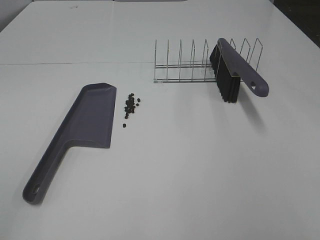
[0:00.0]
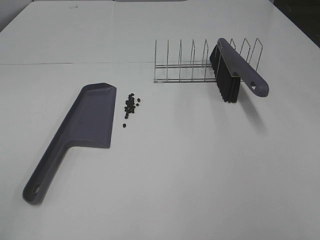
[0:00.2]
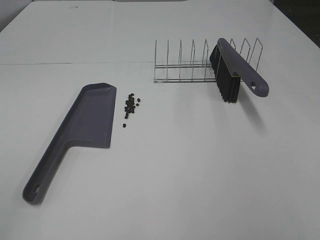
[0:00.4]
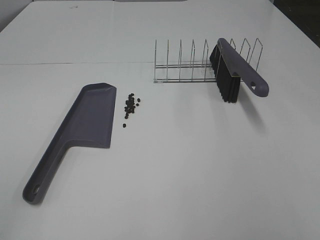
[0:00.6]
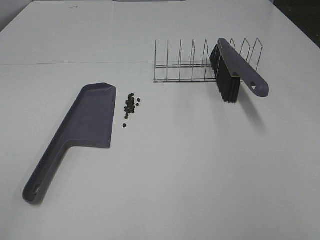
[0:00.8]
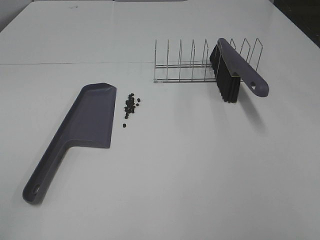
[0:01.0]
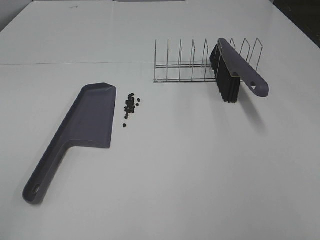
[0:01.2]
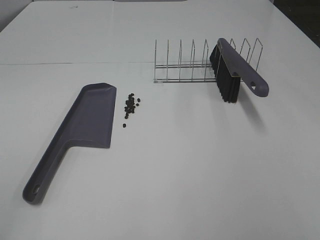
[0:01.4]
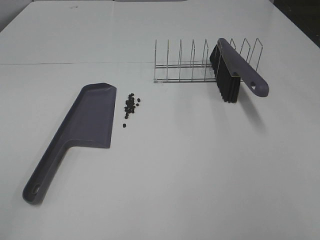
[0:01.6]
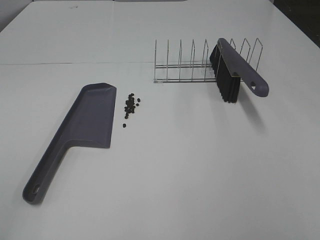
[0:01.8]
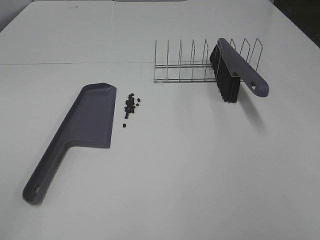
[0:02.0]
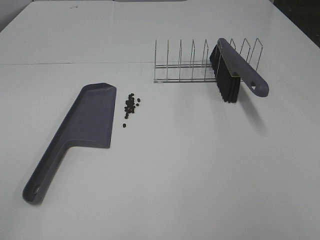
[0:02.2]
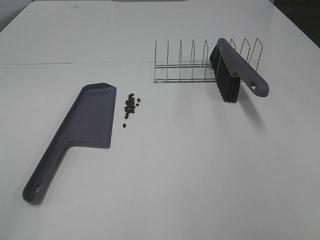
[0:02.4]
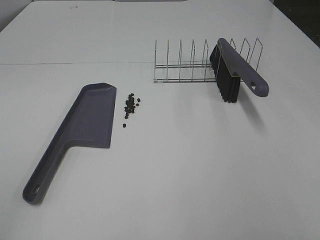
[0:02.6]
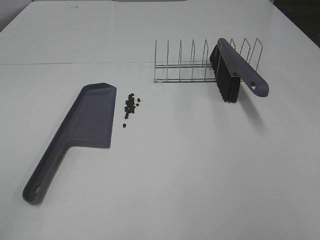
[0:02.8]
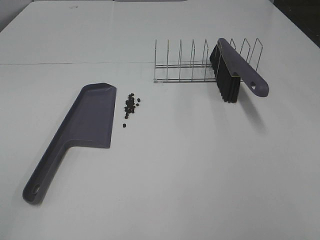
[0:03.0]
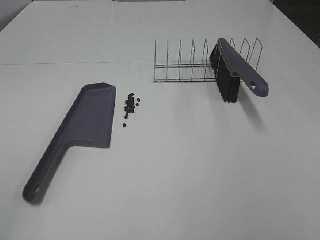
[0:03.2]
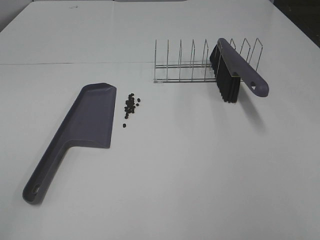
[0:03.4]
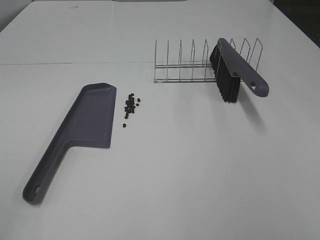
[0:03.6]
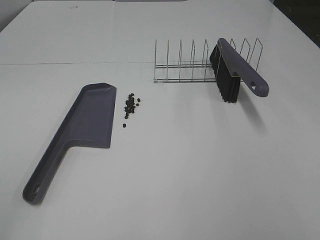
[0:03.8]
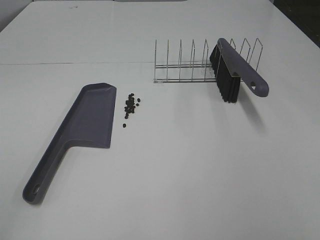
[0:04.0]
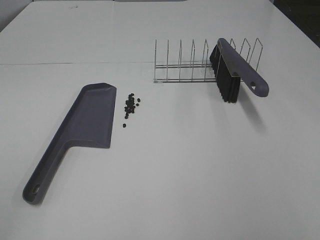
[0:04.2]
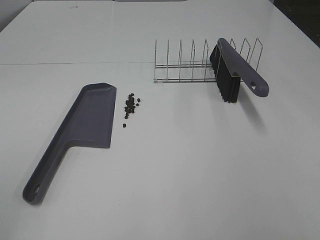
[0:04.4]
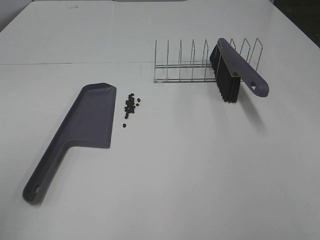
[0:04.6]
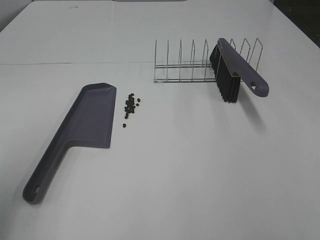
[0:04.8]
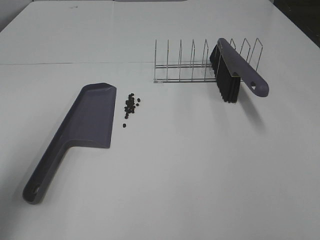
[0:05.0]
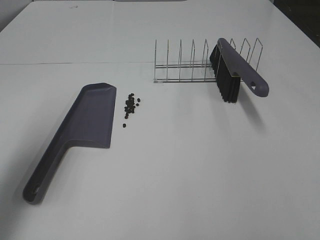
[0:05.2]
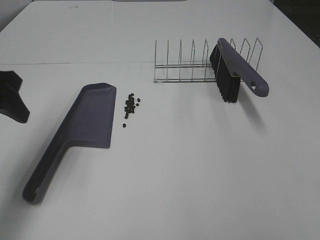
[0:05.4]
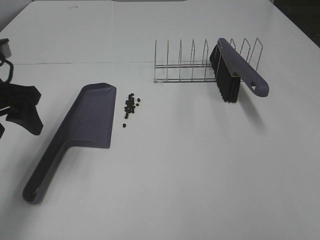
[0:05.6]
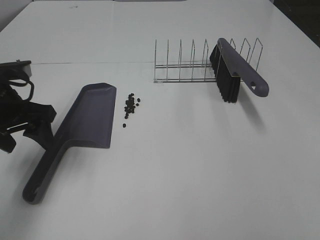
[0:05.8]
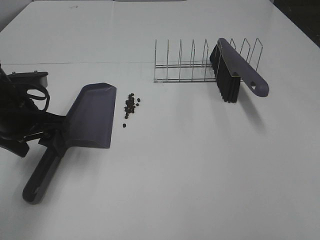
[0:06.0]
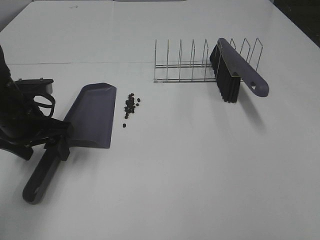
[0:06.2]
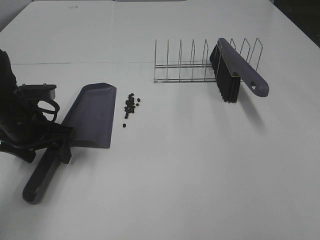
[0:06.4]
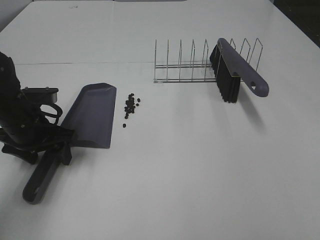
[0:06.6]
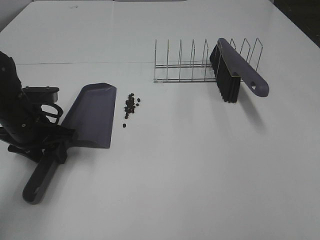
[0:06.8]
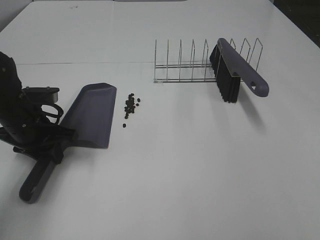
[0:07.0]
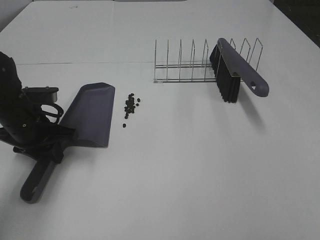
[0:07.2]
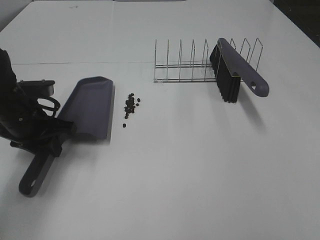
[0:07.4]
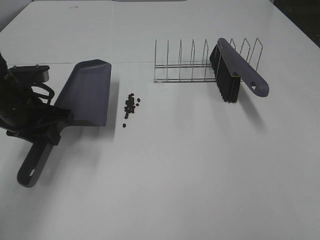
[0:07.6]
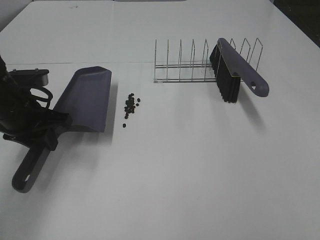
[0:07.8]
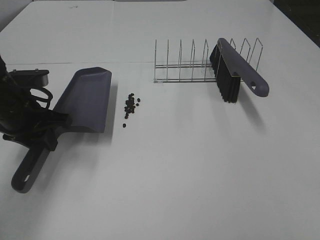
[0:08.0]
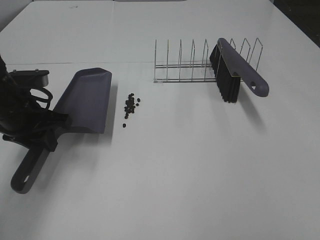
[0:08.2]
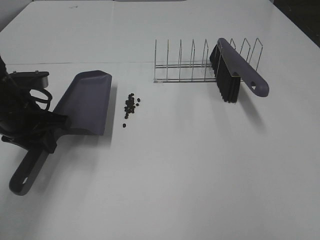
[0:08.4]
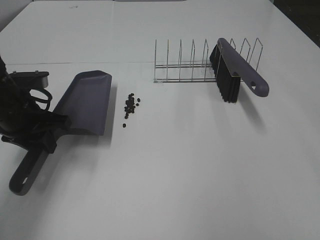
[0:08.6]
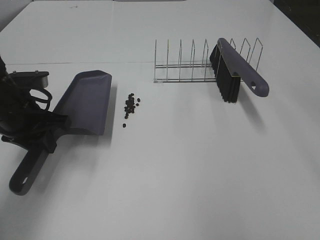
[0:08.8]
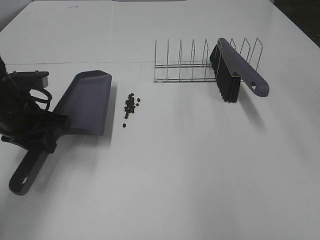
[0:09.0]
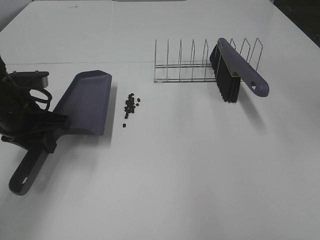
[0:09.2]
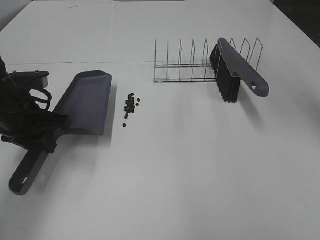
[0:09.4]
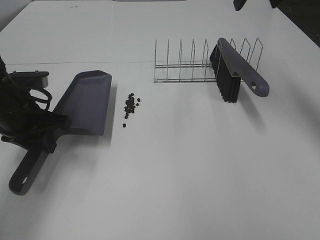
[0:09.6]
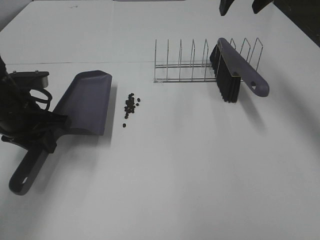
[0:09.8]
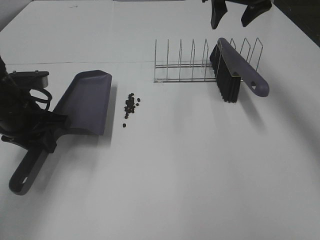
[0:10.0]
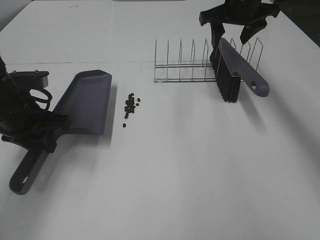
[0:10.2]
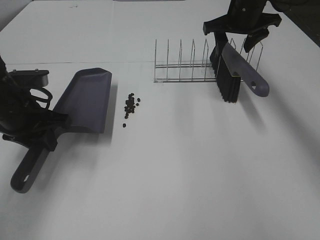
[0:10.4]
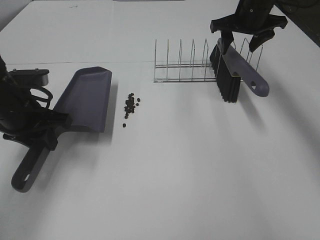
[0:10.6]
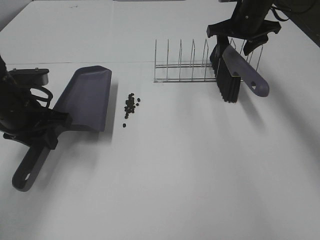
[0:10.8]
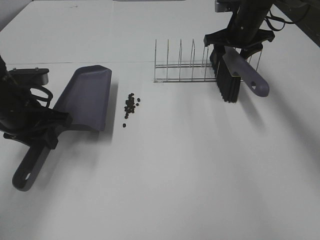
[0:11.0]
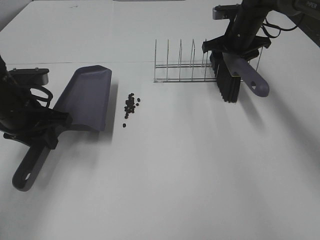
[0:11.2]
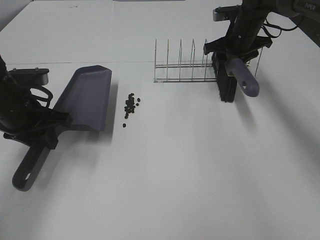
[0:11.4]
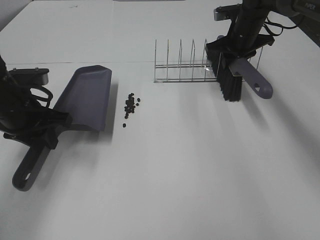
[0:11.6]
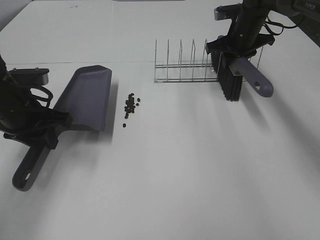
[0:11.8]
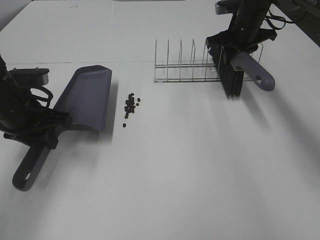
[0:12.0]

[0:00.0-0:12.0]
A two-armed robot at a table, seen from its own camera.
Task of the whole recording: Sweep Coffee Bean.
Step, 0:00.0 to 0:07.0: Left hand: grab the dustpan.
Step, 0:08.0 to 0:11.6: Right hand:grab the broom.
0:00.0 to 0:03.0: Both grippers stay put.
0:04.4 to 0:06.0: The left gripper shifts roughly 30 cm forward and downward.
0:06.0 to 0:07.6: The left gripper closes its fingers.
0:09.0 to 0:10.4: The right gripper goes about 30 cm forward and downward.
0:10.4 to 0:12.0: The right gripper moves about 5 cm, and closes its fingers.

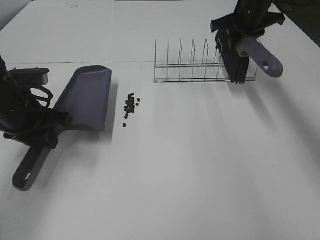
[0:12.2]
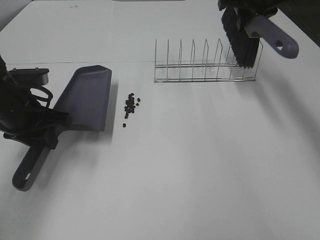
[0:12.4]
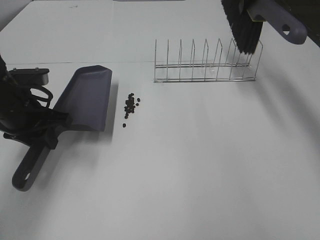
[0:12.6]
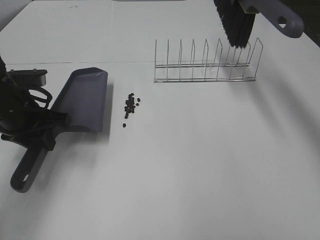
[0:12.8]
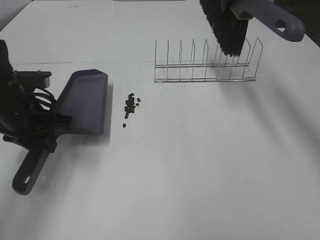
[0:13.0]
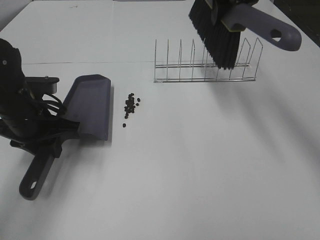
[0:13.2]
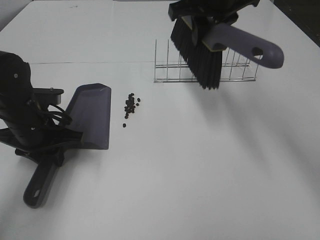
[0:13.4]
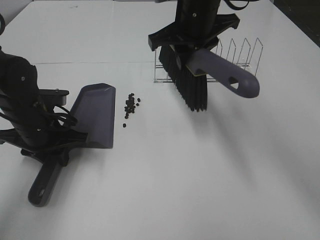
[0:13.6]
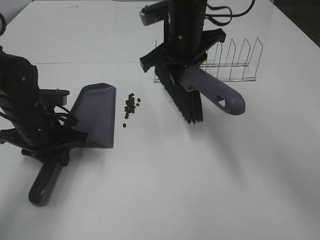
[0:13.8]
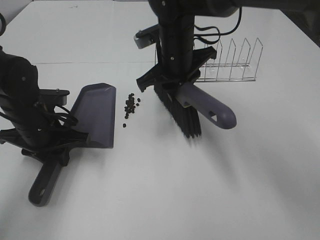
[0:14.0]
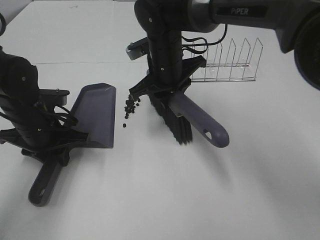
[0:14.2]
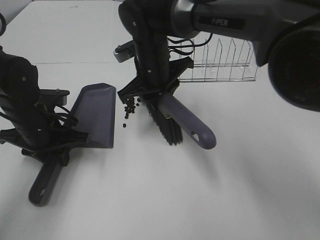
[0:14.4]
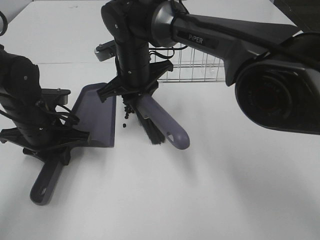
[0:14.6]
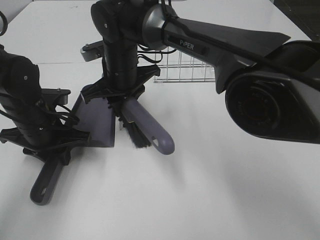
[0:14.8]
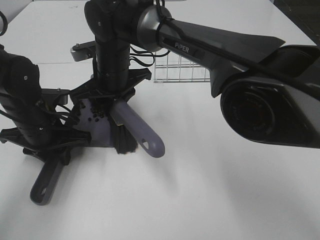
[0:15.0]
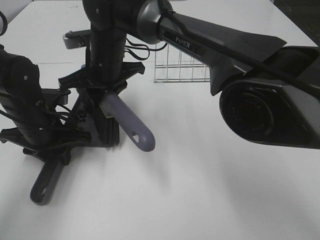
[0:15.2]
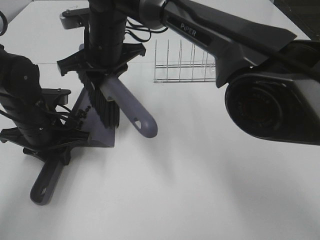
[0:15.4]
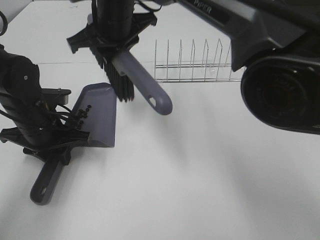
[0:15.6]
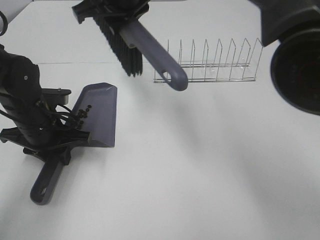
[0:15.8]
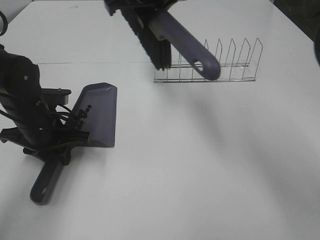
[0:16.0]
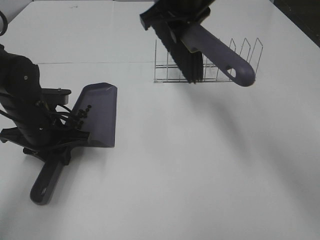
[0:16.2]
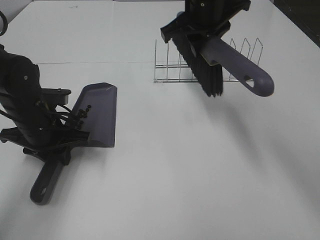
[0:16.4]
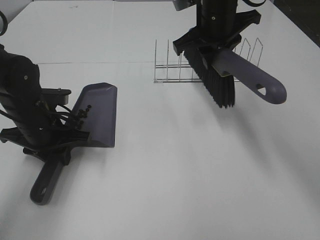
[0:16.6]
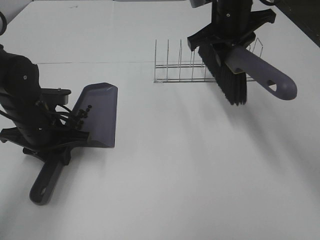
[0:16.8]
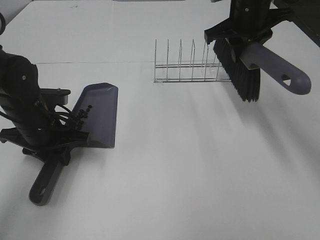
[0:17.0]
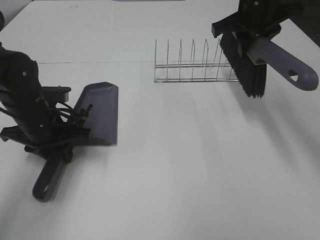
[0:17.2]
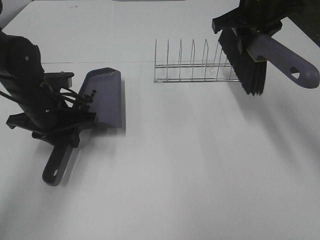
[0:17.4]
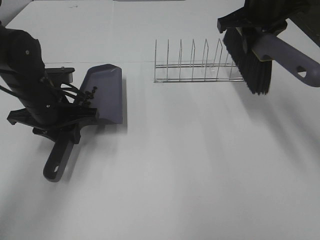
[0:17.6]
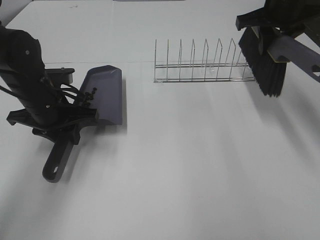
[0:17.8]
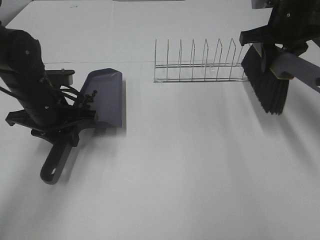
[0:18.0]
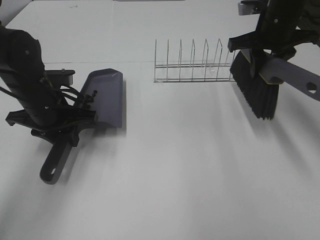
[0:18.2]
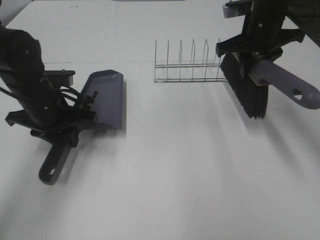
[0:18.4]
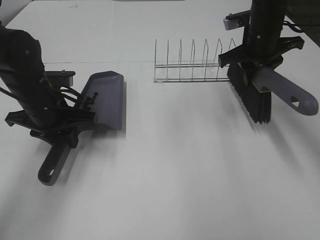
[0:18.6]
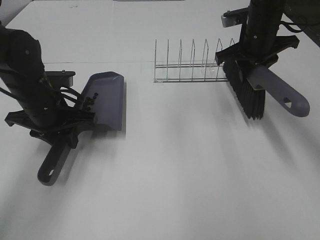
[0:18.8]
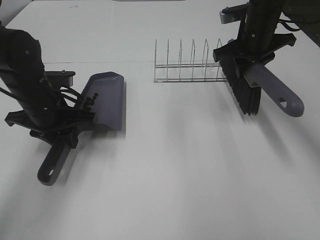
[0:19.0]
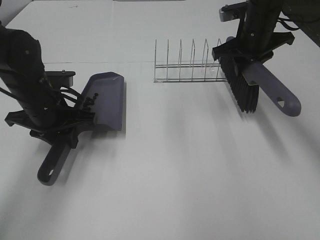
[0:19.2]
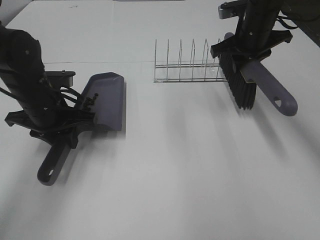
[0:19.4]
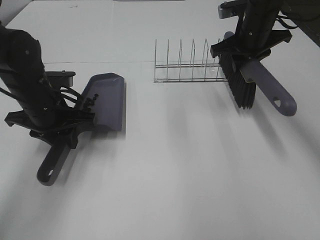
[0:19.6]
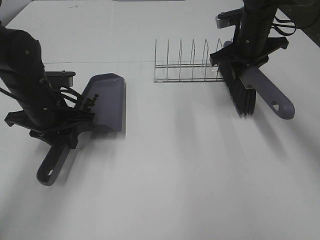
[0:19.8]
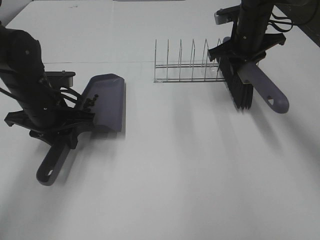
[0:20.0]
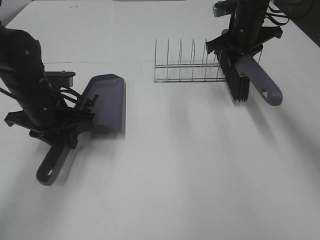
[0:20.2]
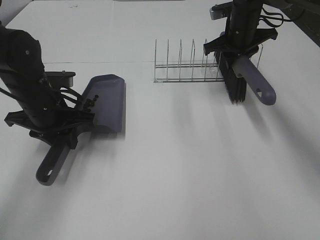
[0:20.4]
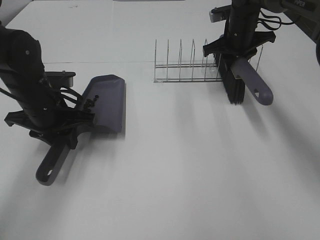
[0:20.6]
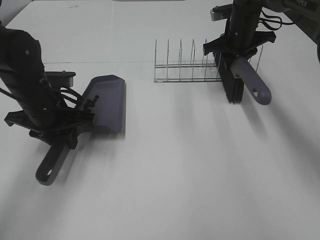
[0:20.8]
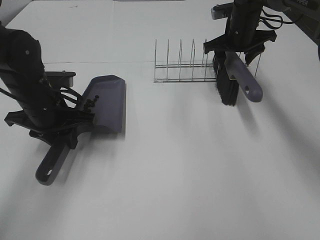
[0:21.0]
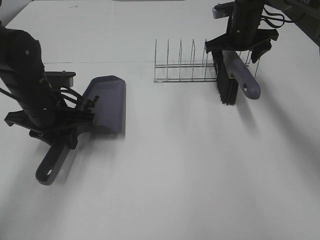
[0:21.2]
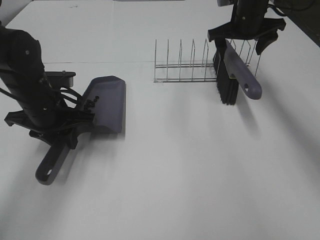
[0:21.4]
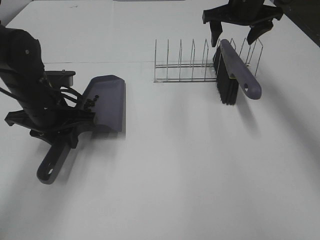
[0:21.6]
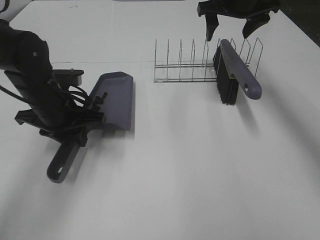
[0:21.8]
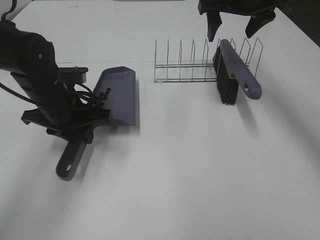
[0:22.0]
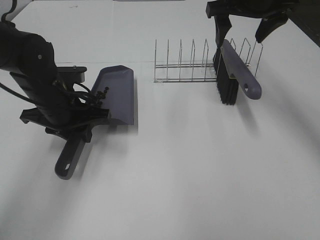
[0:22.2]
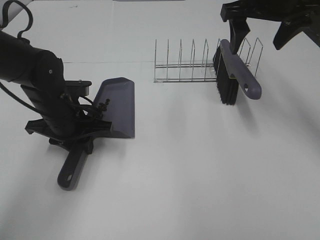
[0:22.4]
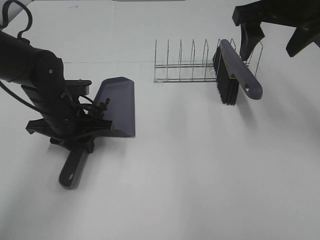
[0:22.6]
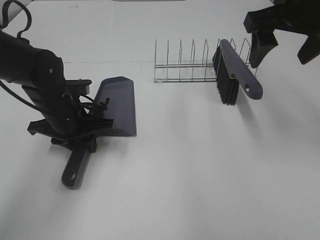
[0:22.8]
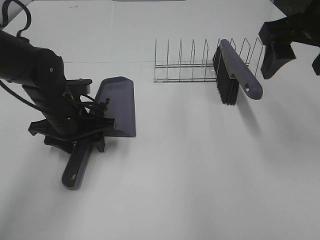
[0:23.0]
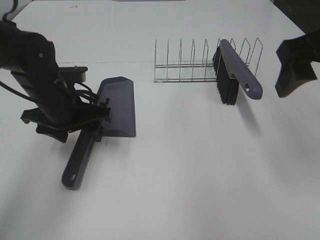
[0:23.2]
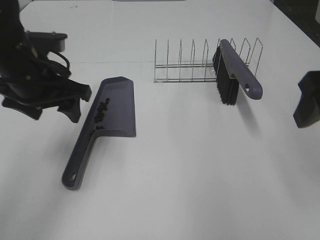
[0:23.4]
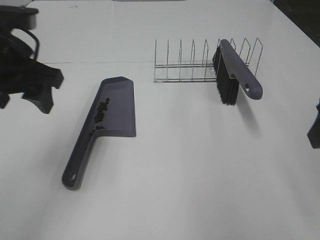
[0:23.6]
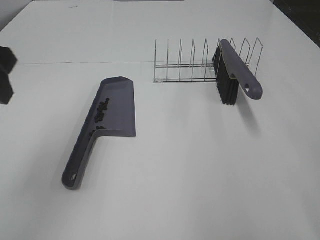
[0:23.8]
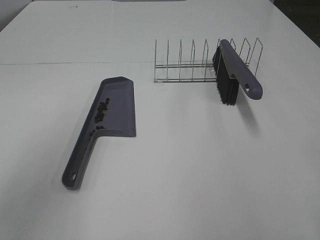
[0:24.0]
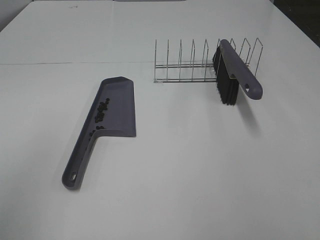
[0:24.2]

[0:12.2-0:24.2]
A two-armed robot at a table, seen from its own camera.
Task of the whole recording: Sweep Coffee Bean.
Step, 0:12.2 to 0:15.2: Right hand:sweep the coffee beans into the dustpan.
Step, 0:15.4 to 0:21.2: Right hand:place the broom on the rack.
Step, 0:21.4 to 0:23.0: Left hand:place the dustpan on the table.
0:12.2 to 0:13.8: The left gripper changes place by about 5 cm. Meanwhile the right gripper is displaced to the left and backward by roughly 20 cm.
0:13.8 to 0:15.2: The right gripper is displaced to the left by roughly 15 cm.
0:15.2 to 0:16.6: The right gripper travels to the right by roughly 20 cm.
0:16.6 to 0:18.2: The right gripper is displaced to the right by about 10 cm.
0:18.2 to 0:19.8: The right gripper travels downward by approximately 5 cm.
0:19.8 to 0:21.2: The right gripper is displaced forward by roughly 5 cm, and opens its fingers.
0:21.2 to 0:22.6: The right gripper heads backward and upward, covering approximately 20 cm.
0:22.6 to 0:24.2: The left gripper shifts roughly 35 cm backward, upward and to the left, and opens. The right gripper goes approximately 30 cm backward.
